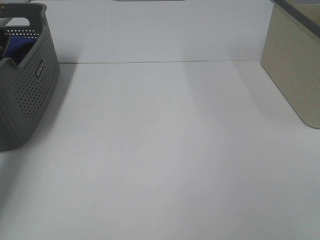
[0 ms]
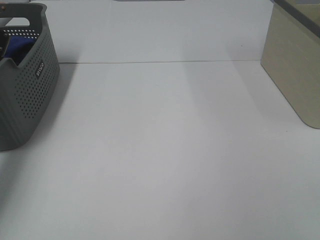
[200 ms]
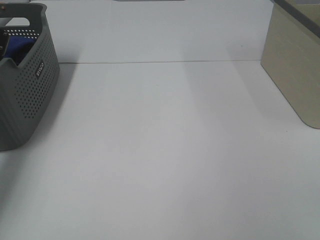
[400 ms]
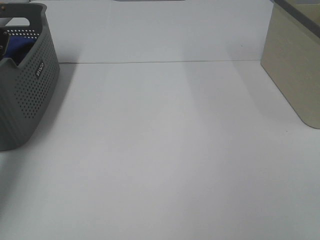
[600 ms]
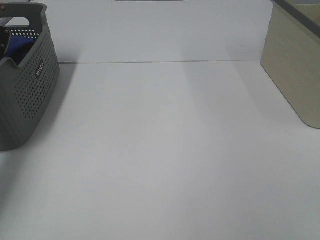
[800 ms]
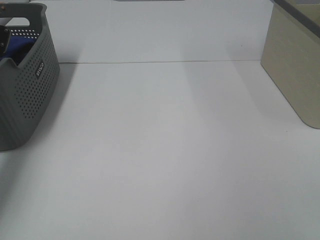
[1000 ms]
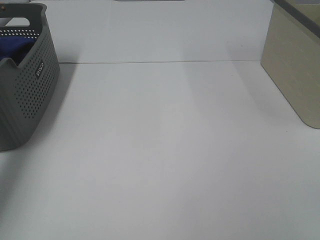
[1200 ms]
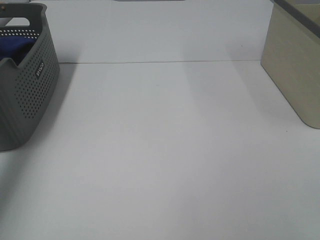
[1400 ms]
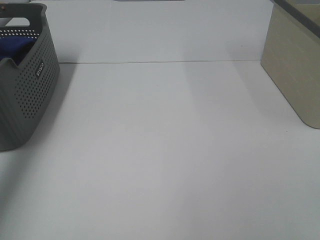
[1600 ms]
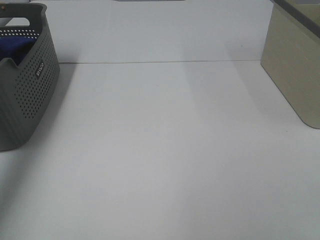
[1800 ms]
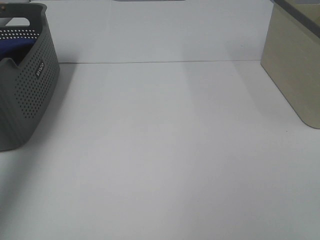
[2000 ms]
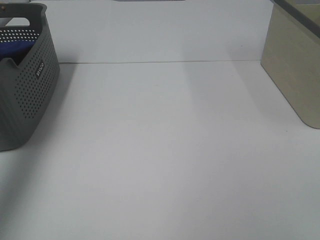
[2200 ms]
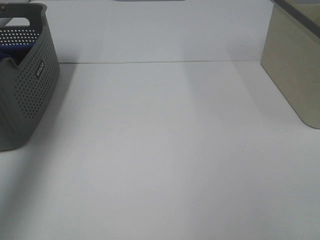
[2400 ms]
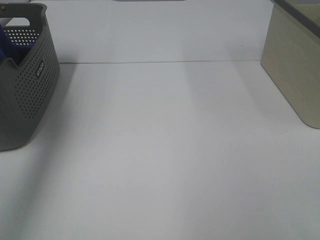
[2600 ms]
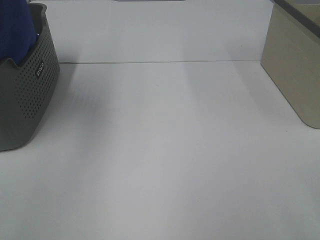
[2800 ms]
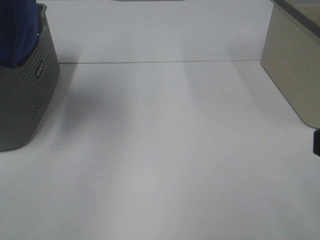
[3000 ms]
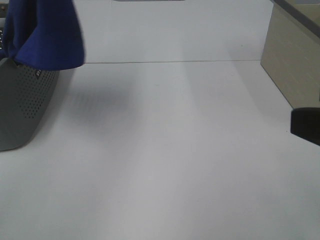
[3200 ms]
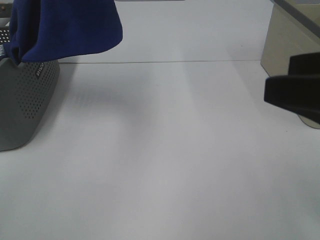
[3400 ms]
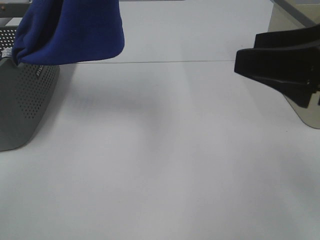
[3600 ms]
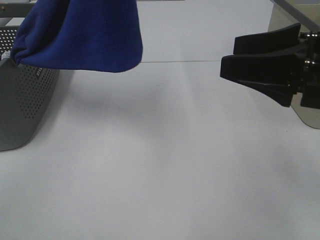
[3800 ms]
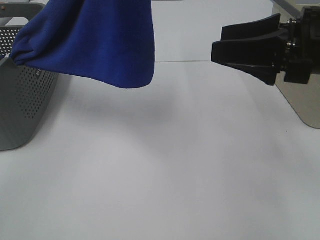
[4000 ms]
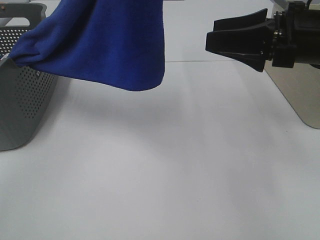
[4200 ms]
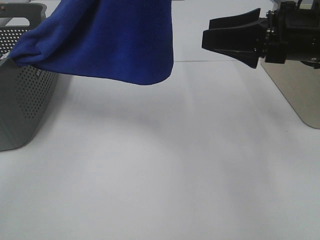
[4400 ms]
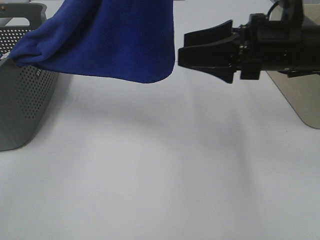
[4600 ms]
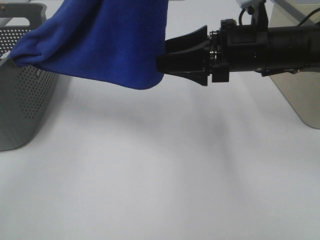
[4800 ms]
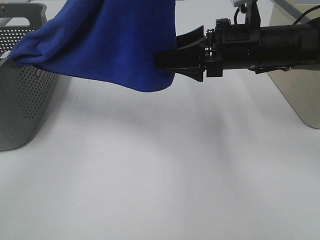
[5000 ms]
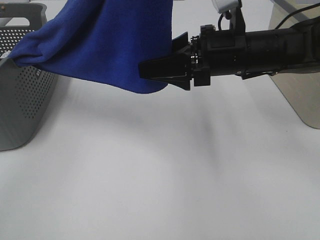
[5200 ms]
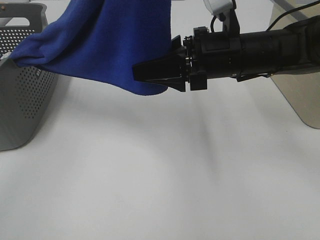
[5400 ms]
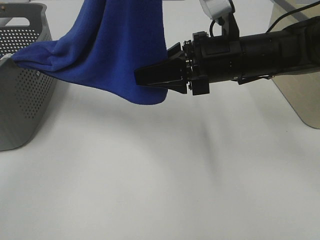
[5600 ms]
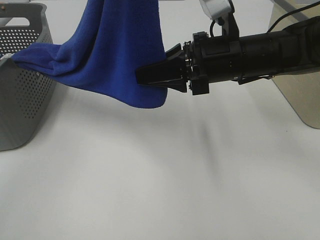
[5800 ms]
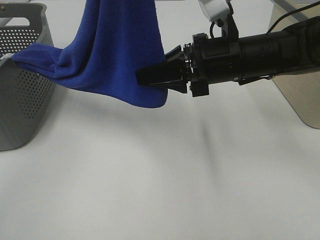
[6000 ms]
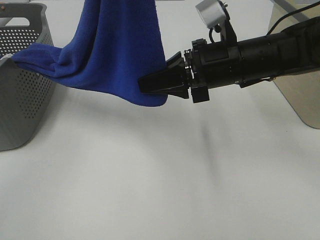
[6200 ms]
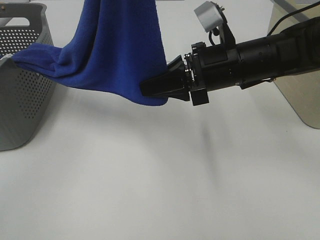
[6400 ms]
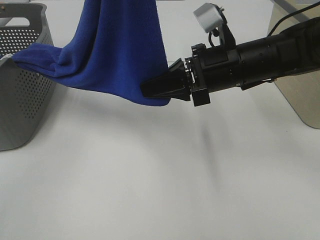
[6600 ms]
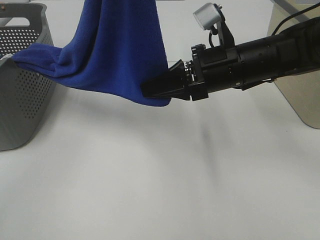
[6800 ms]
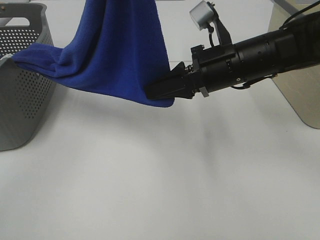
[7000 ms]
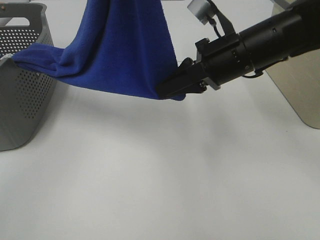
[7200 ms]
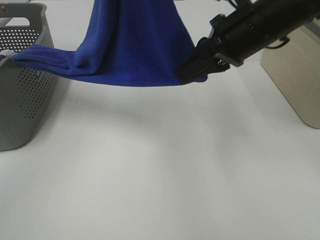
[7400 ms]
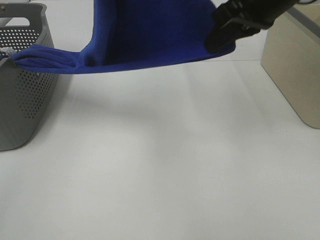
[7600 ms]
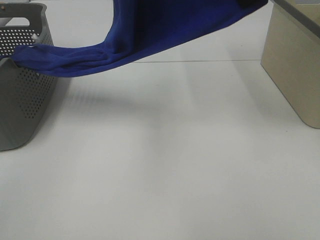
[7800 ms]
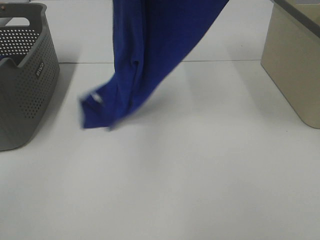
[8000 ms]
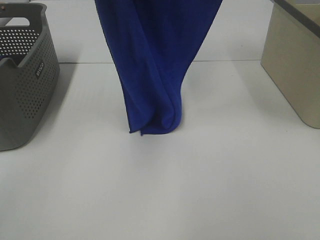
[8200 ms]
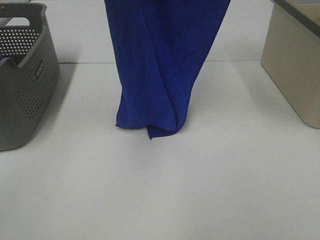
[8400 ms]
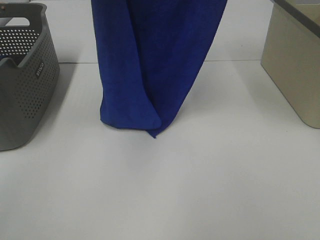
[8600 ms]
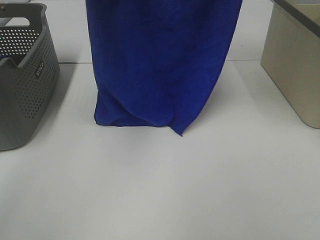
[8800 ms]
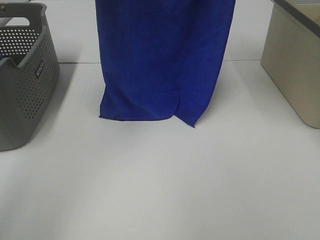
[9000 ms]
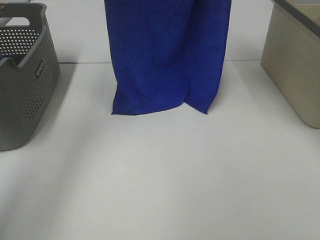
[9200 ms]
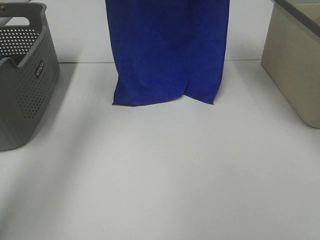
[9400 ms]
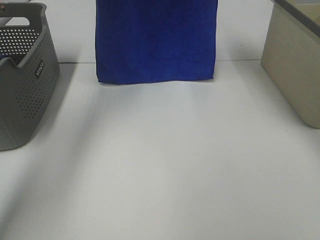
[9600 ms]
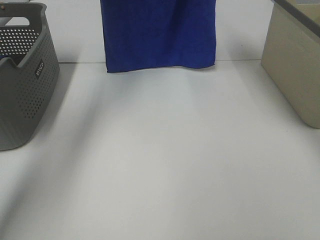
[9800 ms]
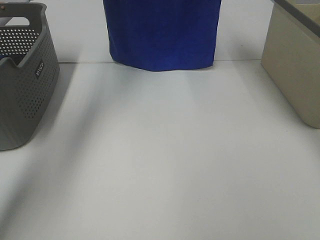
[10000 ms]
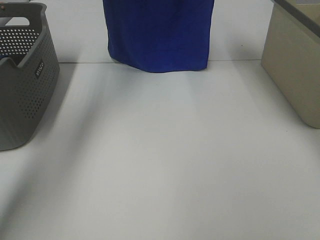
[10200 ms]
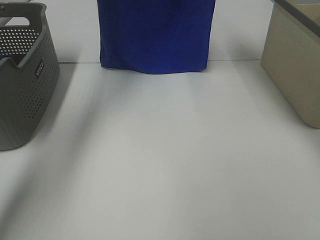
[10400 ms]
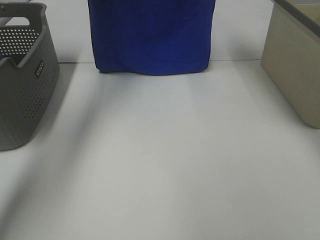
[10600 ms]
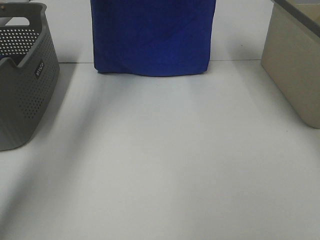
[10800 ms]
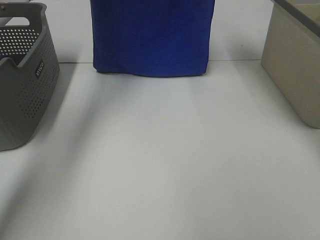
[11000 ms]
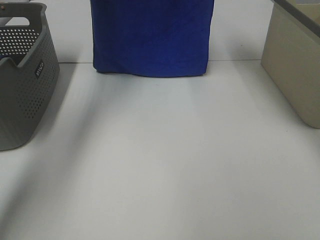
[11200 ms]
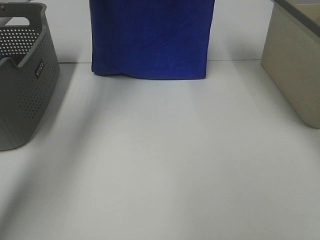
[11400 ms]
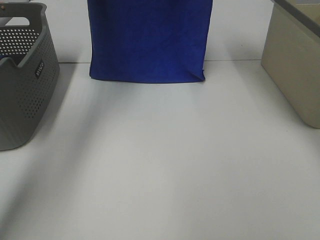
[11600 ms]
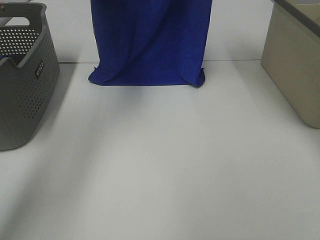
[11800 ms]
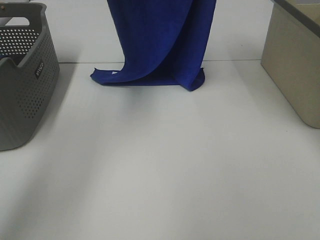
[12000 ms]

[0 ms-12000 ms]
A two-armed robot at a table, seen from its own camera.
Task of the whole recording: Remove the towel and place it.
Step, 2400 ms to 6800 ms: Right hand: grab a corner of the blue towel and straighten it.
1600 ms to 3000 ms: The left gripper shifts roughly 25 cm to the right, upward and backward. Meanwhile the right gripper heads forward, covering approximately 5 cm.
3000 ms to 4400 ms: The left gripper goes roughly 15 cm to the right and backward. Meanwhile the right gripper goes about 25 cm forward.
4400 ms to 6000 ms: The right gripper shifts some 10 cm to the left, and closes its fingers.
6000 ms to 7600 ms: The right gripper goes approximately 10 cm upward.
7600 ms to 9000 ms: The left gripper is displaced forward by some 15 cm. The right gripper moves upward and forward, some 15 cm.
9000 ms to 10400 ms: The two grippers go roughly 10 cm forward.
10400 ms to 12000 ms: The left gripper shifts by some 5 cm.

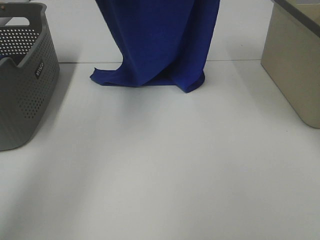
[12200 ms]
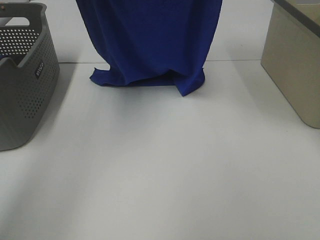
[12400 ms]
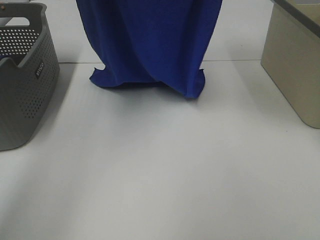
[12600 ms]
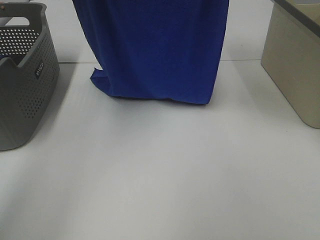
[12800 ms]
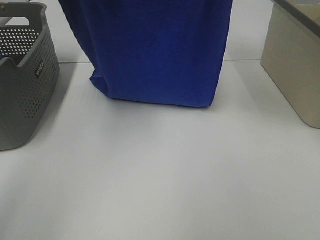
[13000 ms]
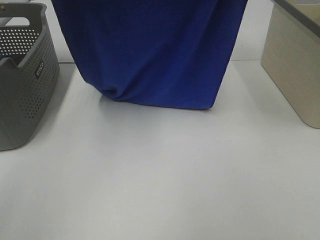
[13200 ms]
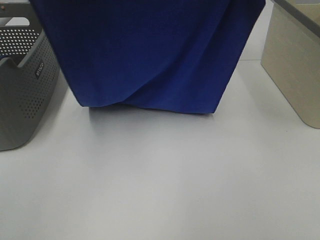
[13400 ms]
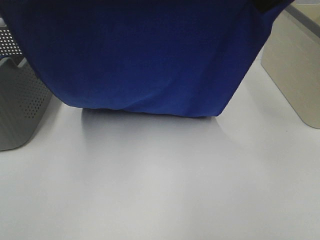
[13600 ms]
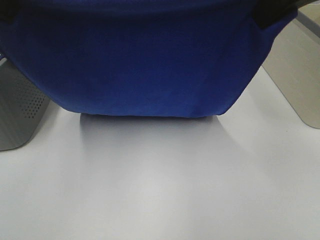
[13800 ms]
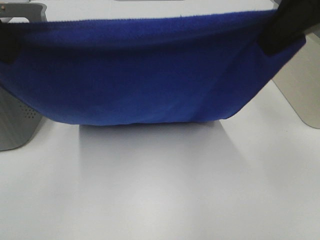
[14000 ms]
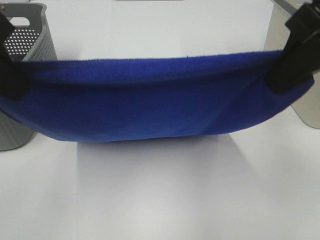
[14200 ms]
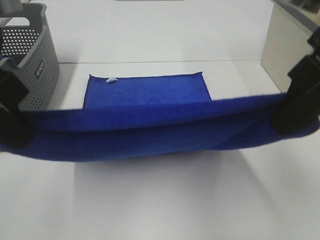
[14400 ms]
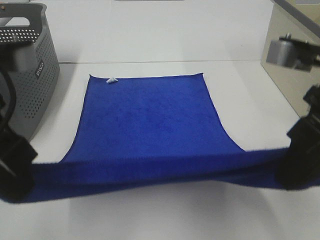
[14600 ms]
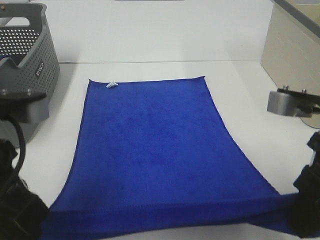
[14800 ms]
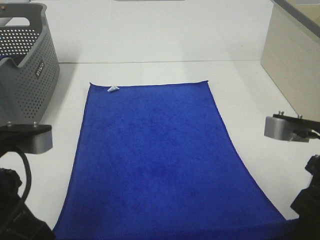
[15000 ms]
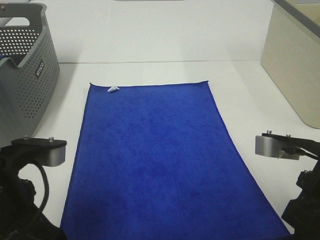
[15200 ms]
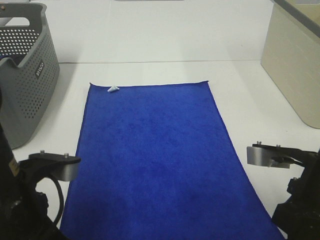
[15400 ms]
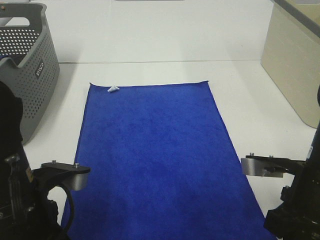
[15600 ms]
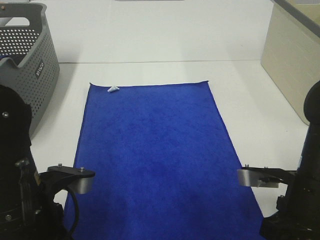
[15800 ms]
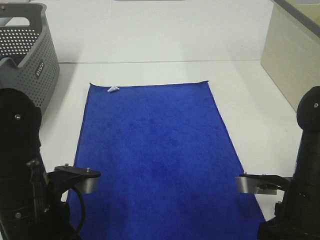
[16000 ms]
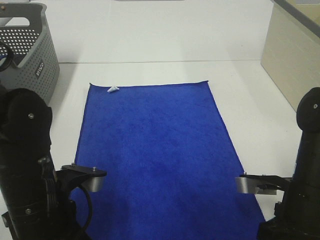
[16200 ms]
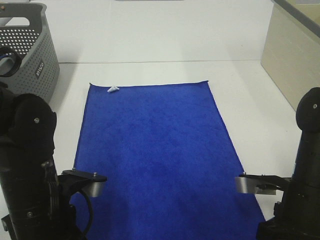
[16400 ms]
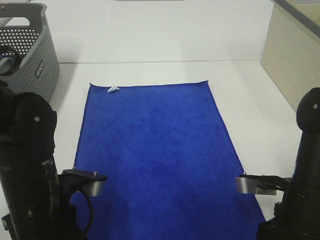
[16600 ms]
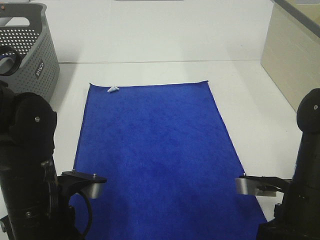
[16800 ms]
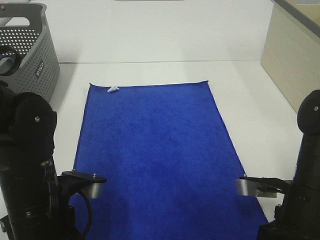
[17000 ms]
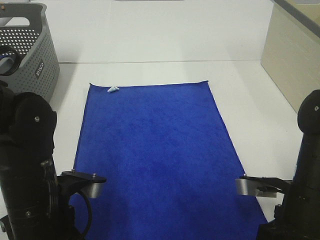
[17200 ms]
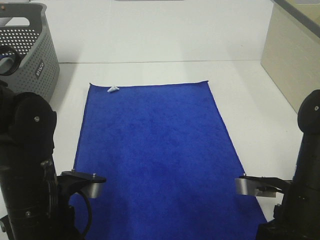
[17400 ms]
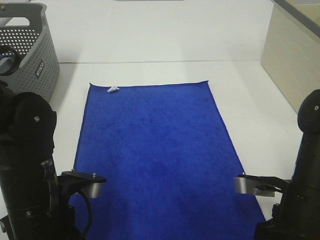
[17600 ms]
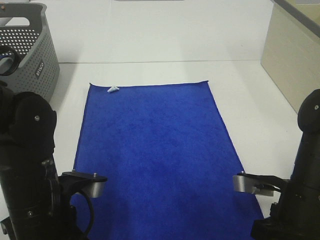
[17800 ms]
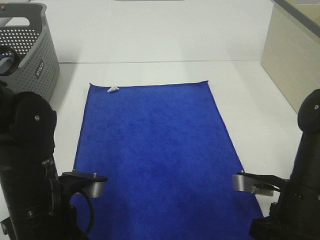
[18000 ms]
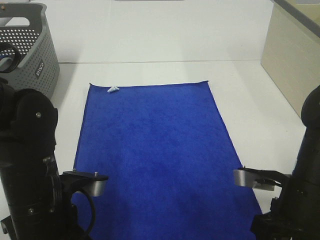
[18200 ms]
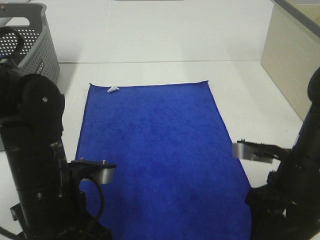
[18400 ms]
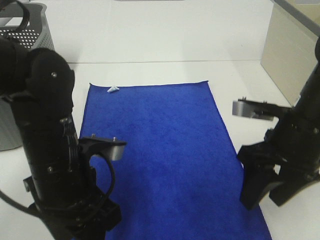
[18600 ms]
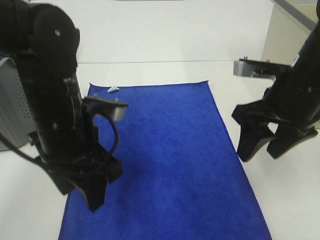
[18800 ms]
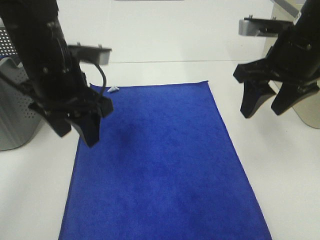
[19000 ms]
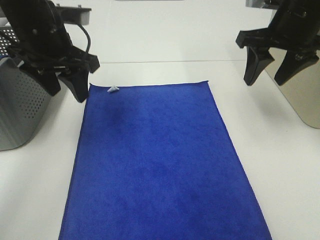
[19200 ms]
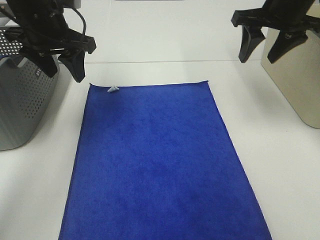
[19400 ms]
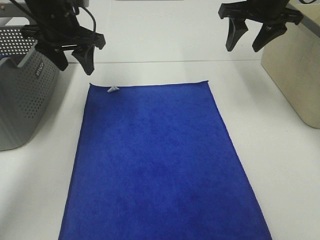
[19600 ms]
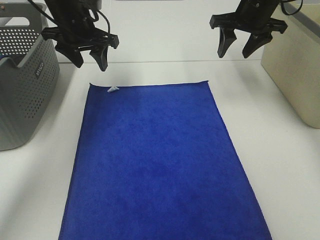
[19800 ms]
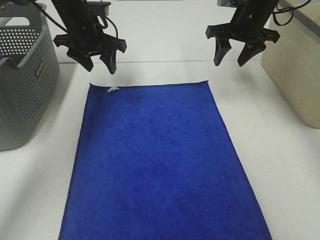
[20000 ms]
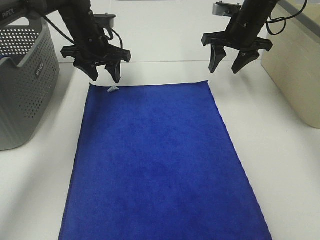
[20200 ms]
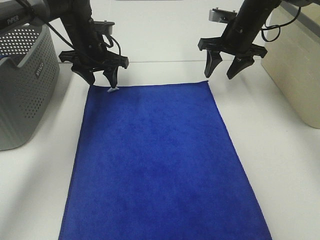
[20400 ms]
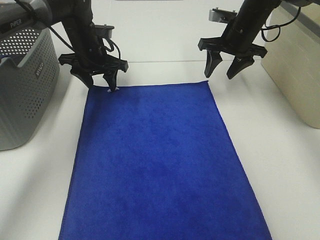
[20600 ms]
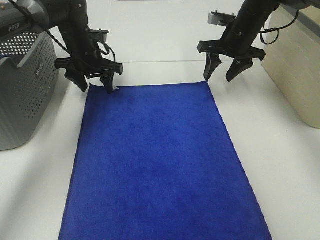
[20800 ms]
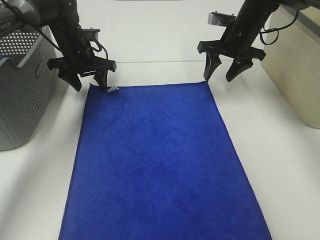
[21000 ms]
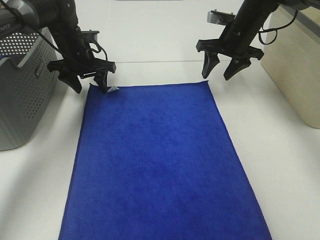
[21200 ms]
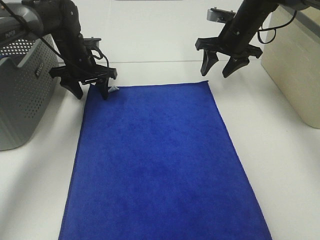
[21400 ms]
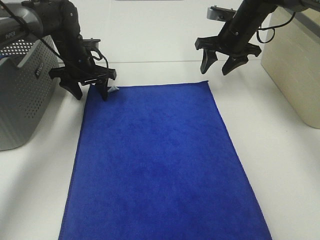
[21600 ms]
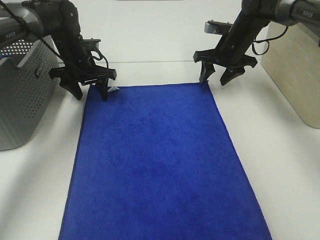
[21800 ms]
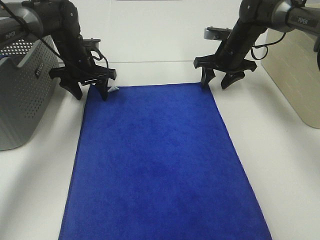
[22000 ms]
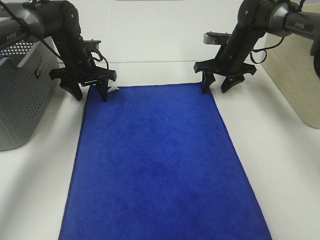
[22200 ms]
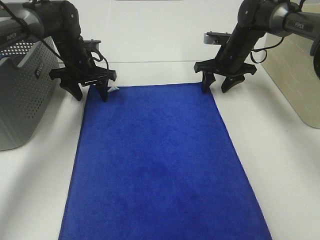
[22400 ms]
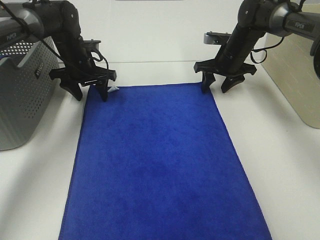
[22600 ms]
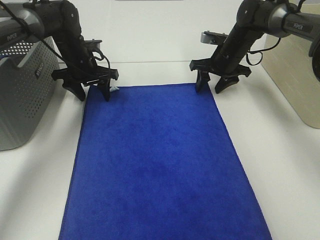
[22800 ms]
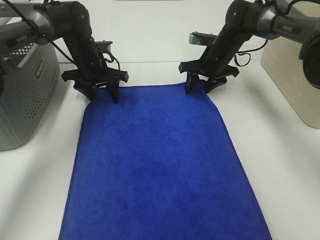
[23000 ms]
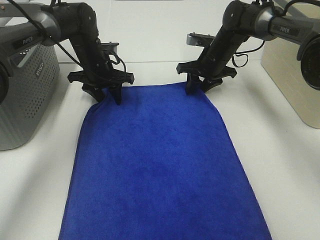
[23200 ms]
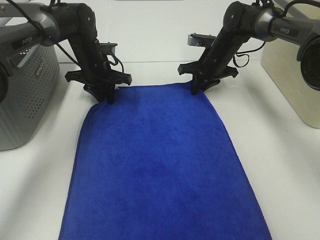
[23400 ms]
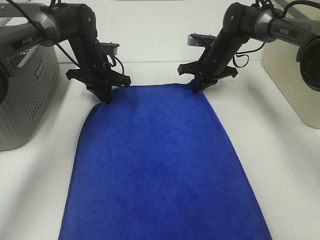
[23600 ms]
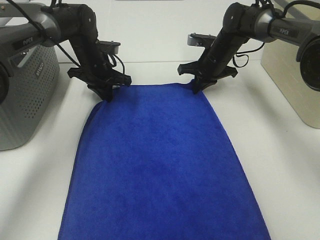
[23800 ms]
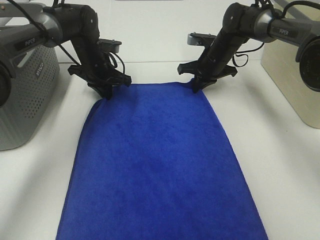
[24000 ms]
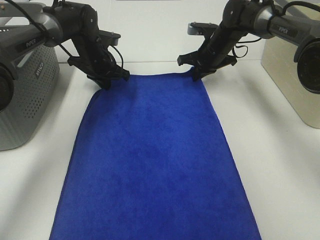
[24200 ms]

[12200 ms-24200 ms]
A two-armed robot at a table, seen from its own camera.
Task of the whole recording: Remove the towel and place it.
Step, 13400 ms to 20600 ms: Left hand:adjust the blue towel.
Step, 13400 ms to 20600 ms: Right hand:adjust the blue towel.
12200 ms to 13800 ms: The two grippers go about 20 cm backward.
13800 ms to 15200 ms: The left gripper heads downward, covering approximately 20 cm. Meanwhile the right gripper goes about 25 cm downward and backward.
15200 ms to 16600 ms: Both grippers travel together downward, roughly 10 cm.
16600 ms to 18200 ms: The left gripper opens up, while the right gripper opens.
18200 ms to 19800 ms: The grippers both shift forward by some 30 cm.
19800 ms to 21200 ms: Both grippers travel together downward, some 10 cm.
21200 ms to 22600 ms: The right gripper shifts about 5 cm downward.
22600 ms to 24200 ms: The right gripper closes. The left gripper closes up.
